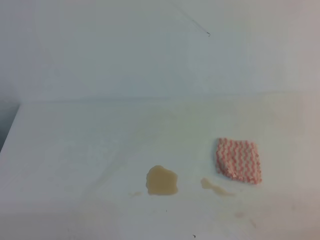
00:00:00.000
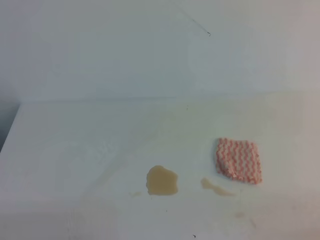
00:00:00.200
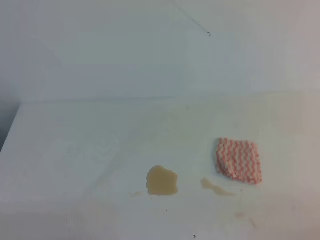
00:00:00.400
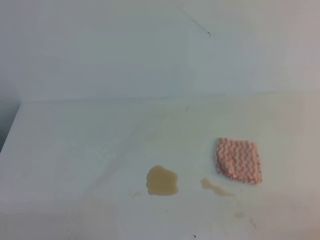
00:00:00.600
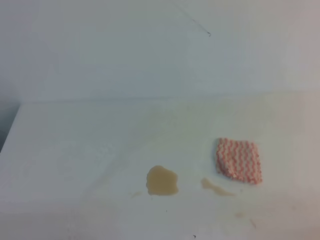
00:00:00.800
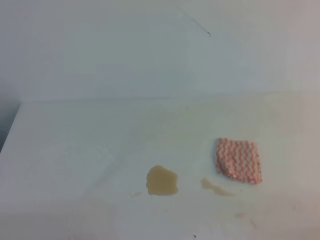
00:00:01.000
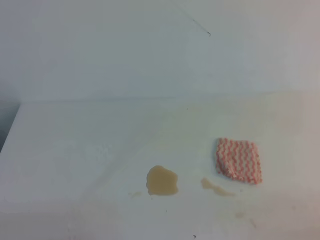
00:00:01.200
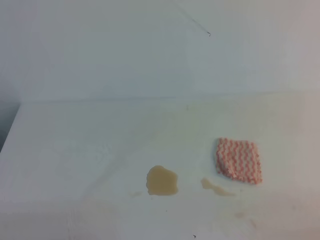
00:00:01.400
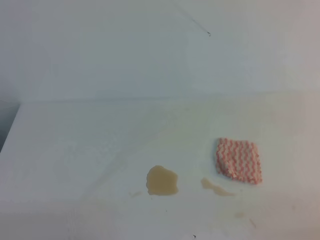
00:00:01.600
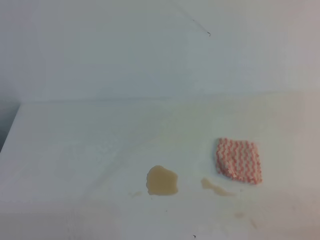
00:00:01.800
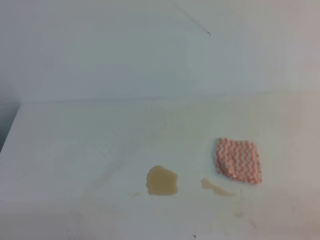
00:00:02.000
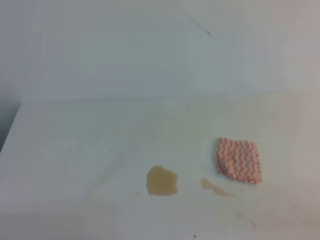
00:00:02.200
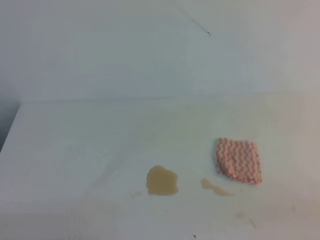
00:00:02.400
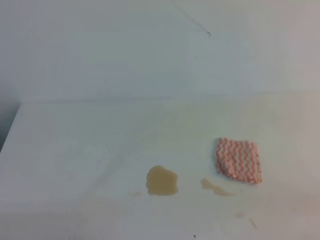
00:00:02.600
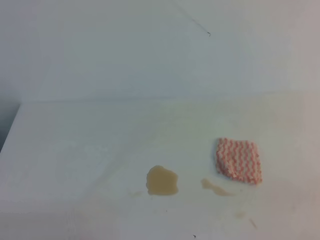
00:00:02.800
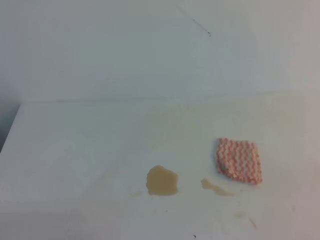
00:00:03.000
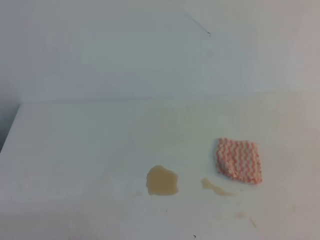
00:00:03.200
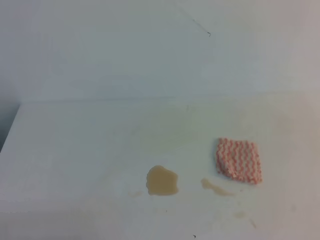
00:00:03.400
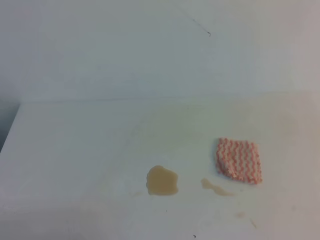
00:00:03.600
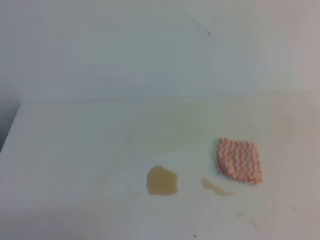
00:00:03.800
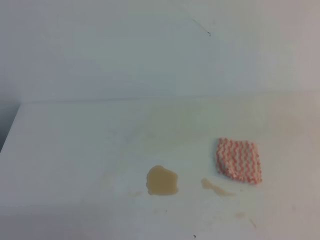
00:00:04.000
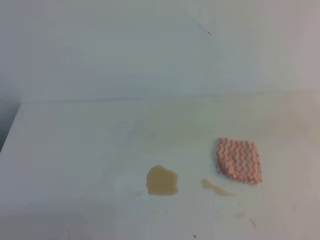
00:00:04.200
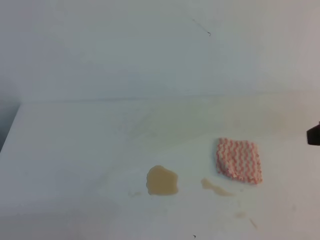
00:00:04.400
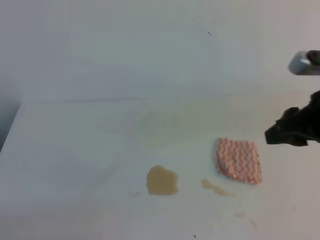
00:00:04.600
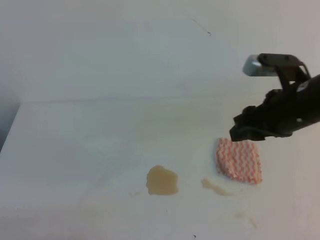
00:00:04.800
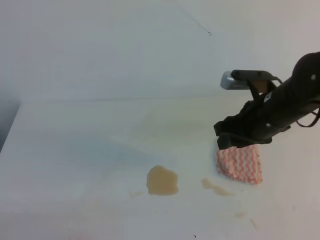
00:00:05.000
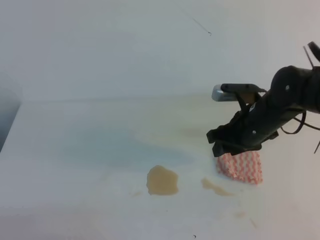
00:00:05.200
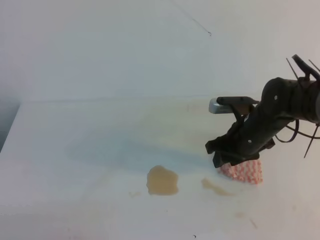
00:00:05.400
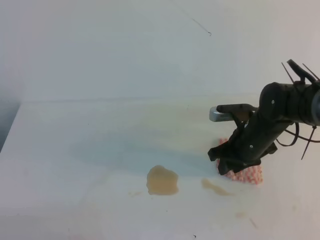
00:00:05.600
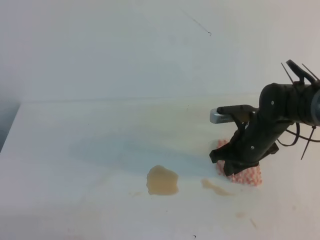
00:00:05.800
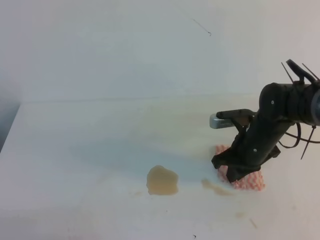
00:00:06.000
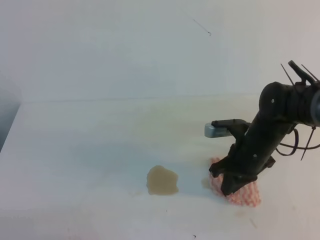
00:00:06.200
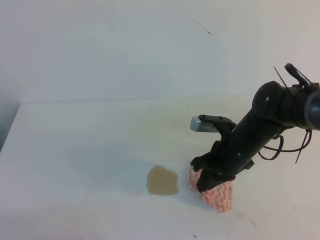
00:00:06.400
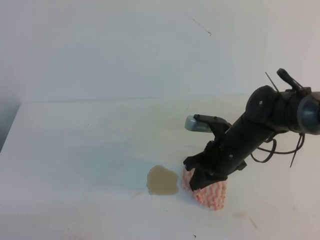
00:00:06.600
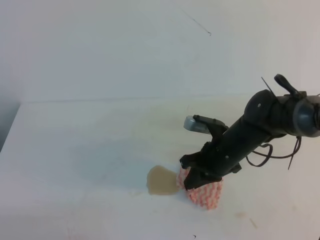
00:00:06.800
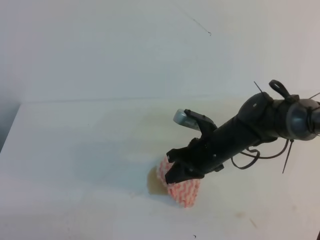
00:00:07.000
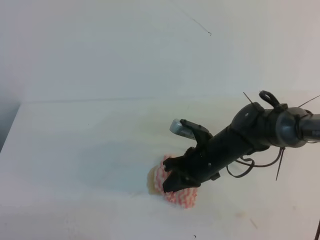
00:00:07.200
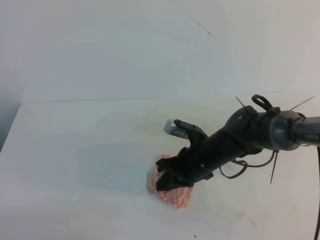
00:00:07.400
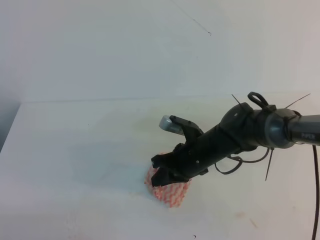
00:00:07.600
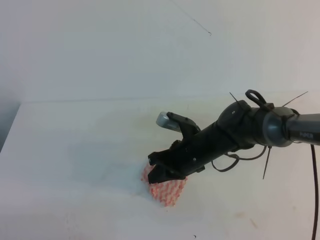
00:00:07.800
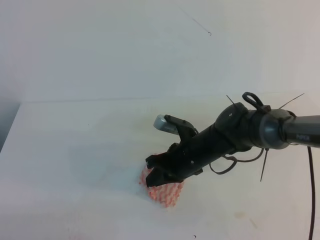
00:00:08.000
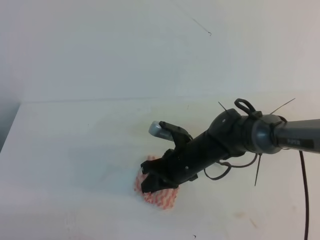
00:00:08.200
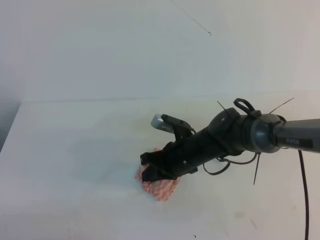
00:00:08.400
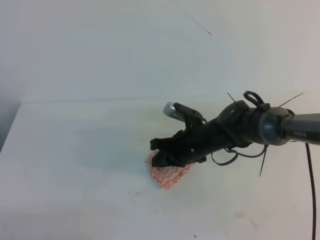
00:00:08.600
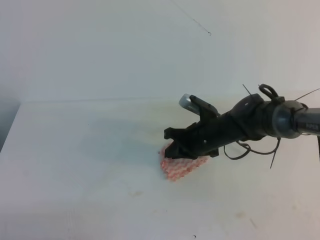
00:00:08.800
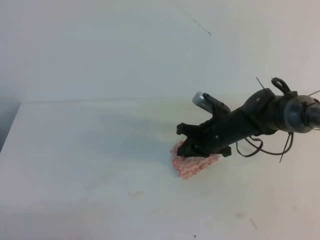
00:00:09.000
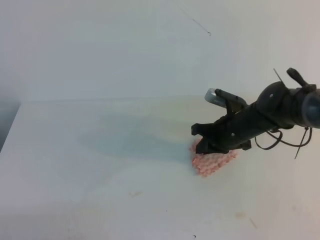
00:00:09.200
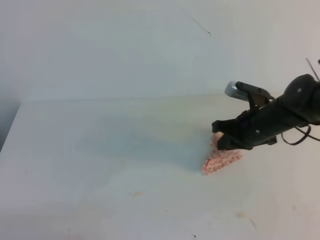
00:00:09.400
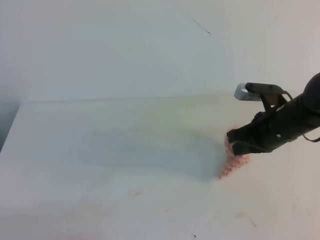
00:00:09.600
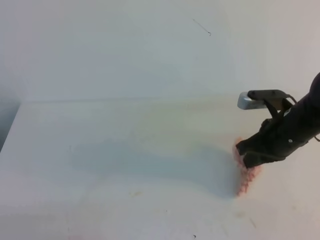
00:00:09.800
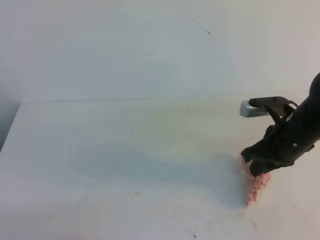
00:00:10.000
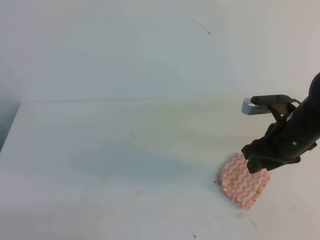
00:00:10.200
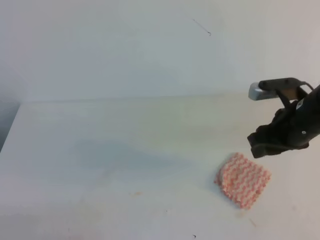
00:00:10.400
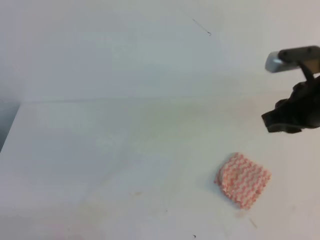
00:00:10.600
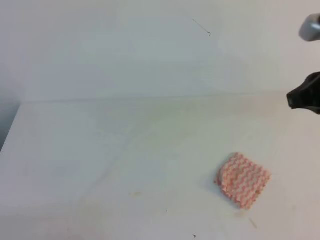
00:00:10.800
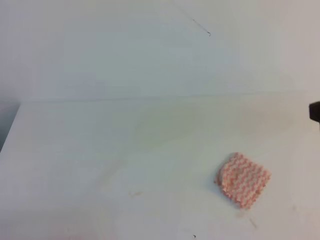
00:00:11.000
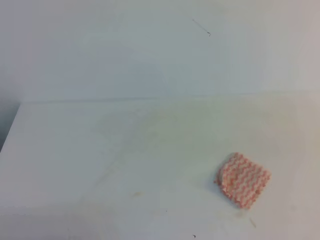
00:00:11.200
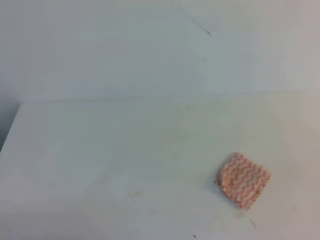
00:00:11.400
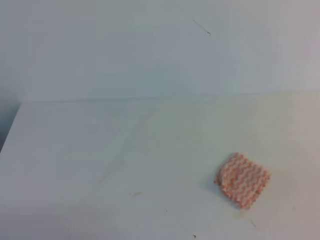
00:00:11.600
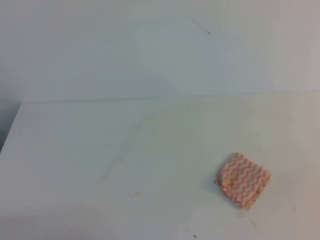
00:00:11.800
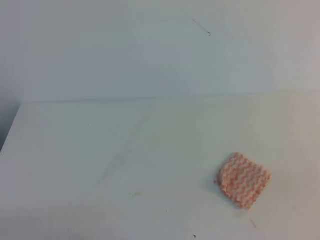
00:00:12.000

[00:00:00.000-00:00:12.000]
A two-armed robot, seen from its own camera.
00:00:00.000 to 00:00:01.600: The two grippers keep their place.
00:00:04.400 to 00:00:06.000: The right gripper is displaced downward, forward and to the left by approximately 25 cm, and closes up.
00:00:06.000 to 00:00:07.600: The right gripper shifts roughly 10 cm to the left.
00:00:07.600 to 00:00:09.000: The right gripper is displaced forward by approximately 5 cm.
00:00:09.000 to 00:00:10.400: The right gripper travels upward, to the right and backward by some 15 cm, and opens its fingers.
00:00:10.400 to 00:00:12.000: The right gripper goes some 25 cm backward, and closes.

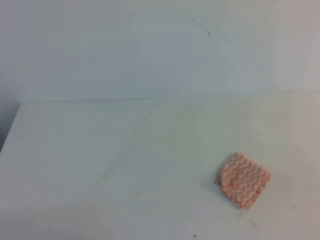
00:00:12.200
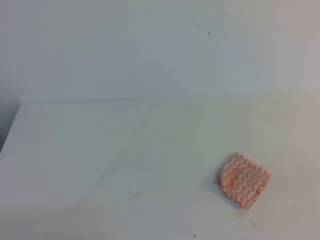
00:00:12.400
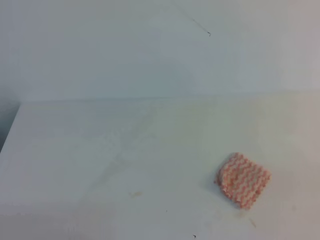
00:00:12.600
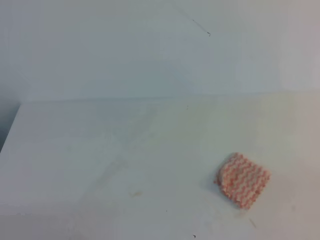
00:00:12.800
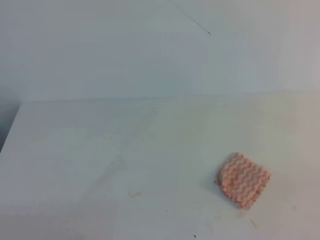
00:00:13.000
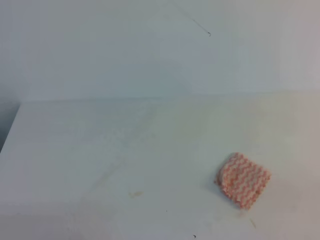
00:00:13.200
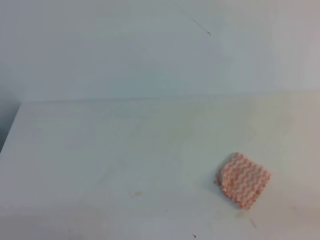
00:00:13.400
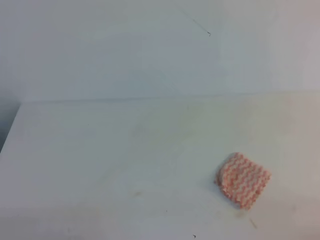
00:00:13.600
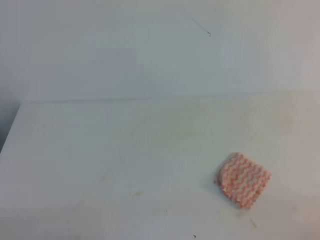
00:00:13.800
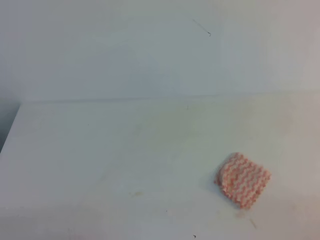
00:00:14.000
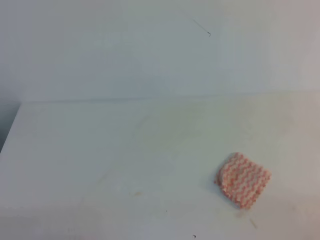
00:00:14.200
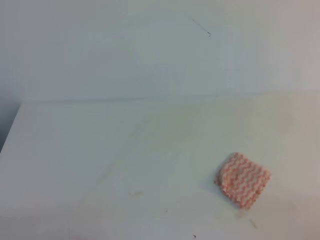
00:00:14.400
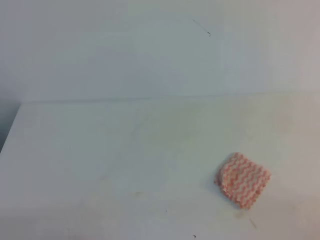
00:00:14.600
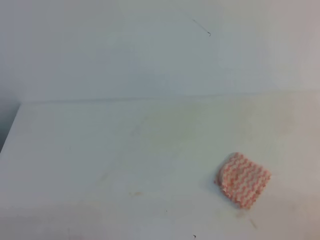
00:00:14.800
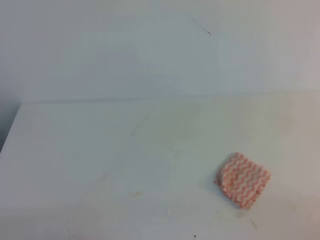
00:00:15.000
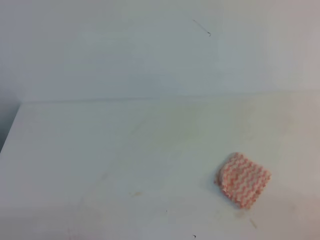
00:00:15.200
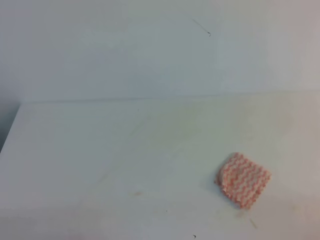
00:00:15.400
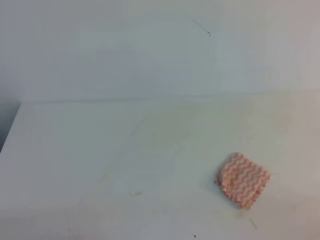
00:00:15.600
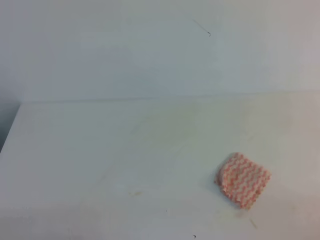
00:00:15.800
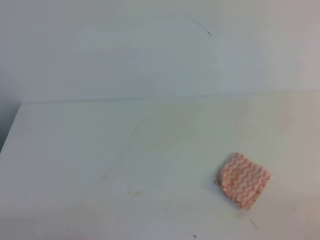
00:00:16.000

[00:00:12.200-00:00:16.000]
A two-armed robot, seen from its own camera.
00:00:14.800 to 00:00:16.000: The two grippers keep their place.
